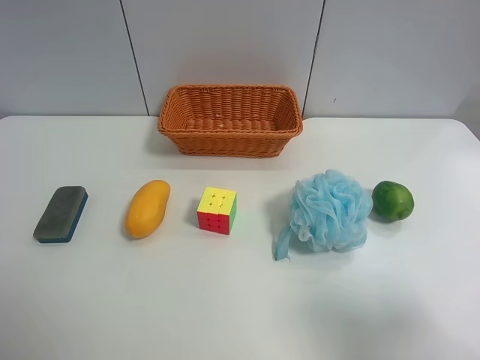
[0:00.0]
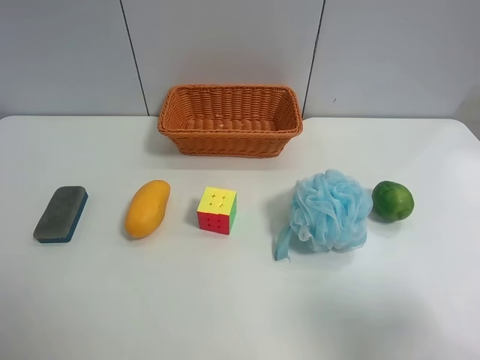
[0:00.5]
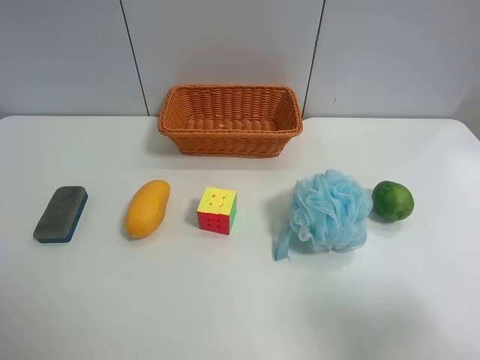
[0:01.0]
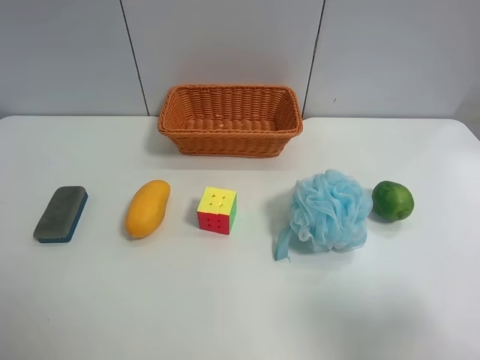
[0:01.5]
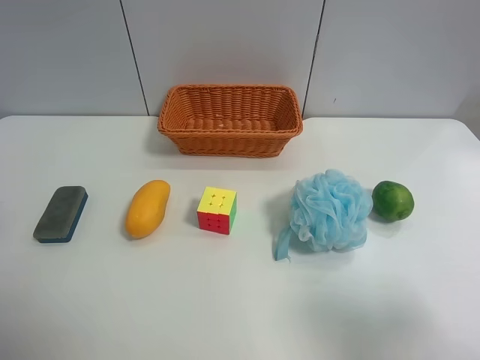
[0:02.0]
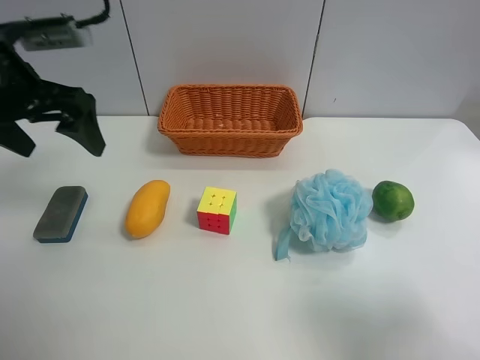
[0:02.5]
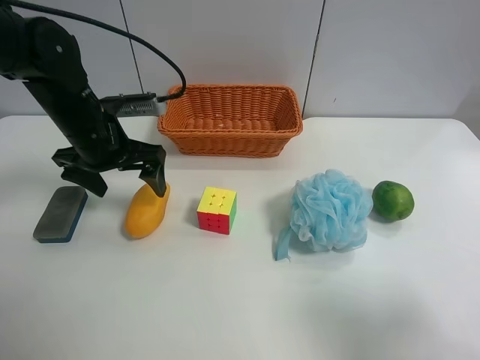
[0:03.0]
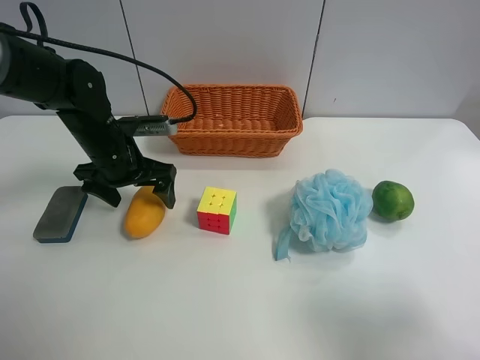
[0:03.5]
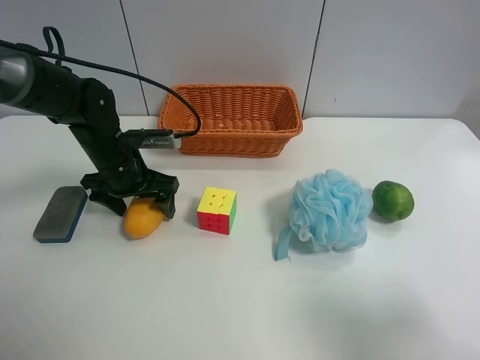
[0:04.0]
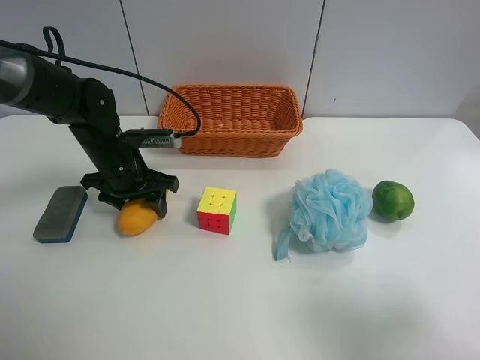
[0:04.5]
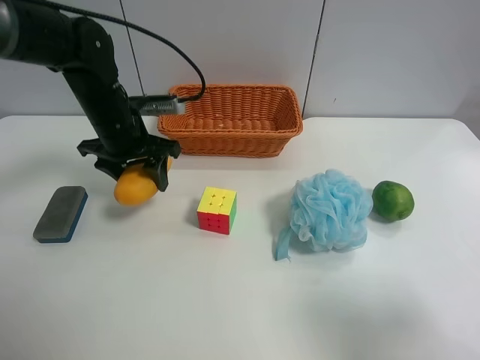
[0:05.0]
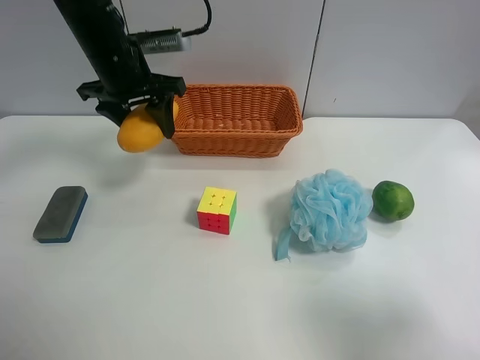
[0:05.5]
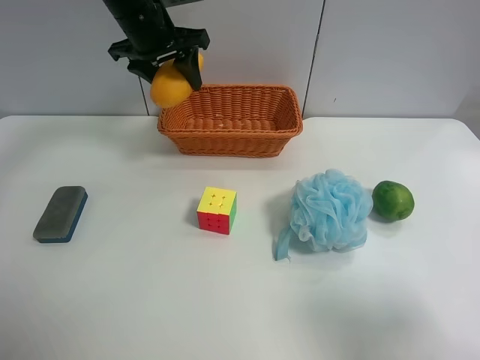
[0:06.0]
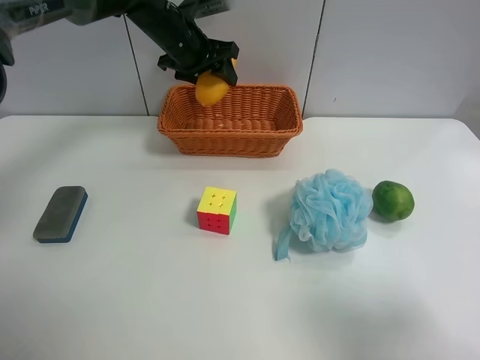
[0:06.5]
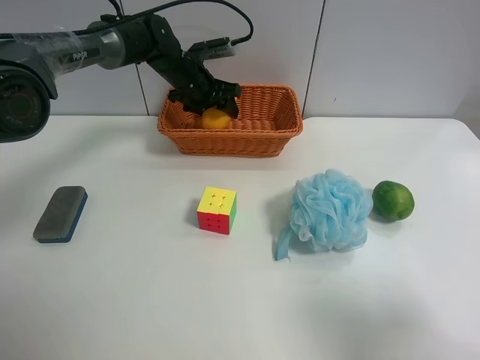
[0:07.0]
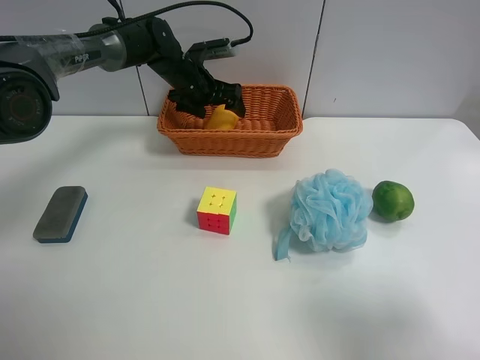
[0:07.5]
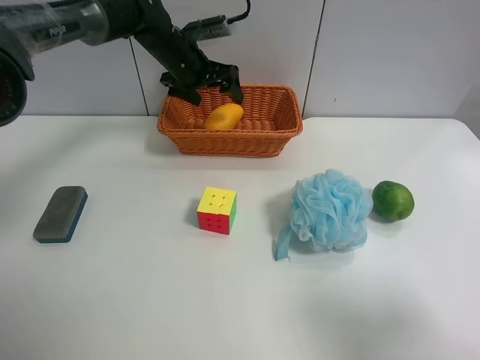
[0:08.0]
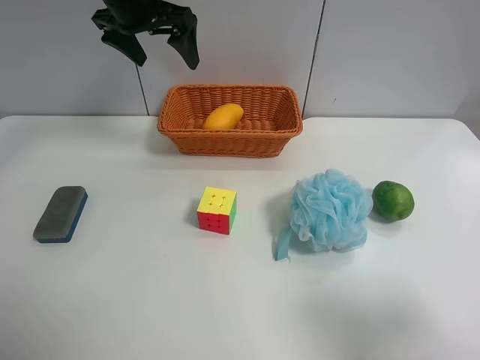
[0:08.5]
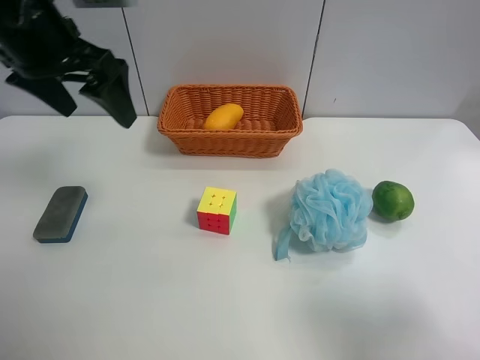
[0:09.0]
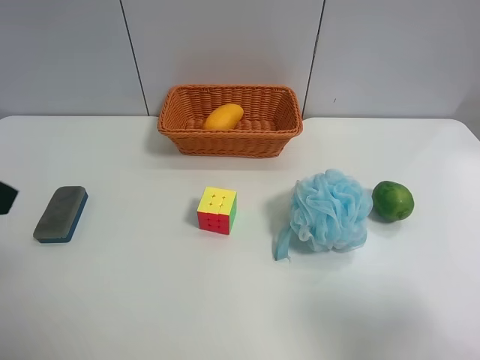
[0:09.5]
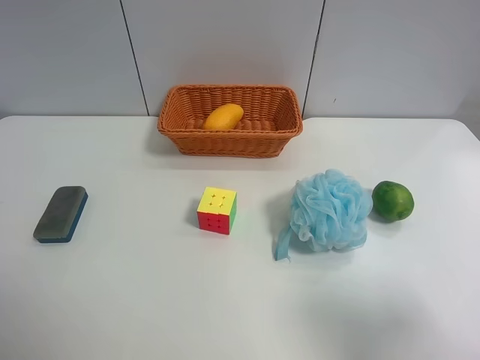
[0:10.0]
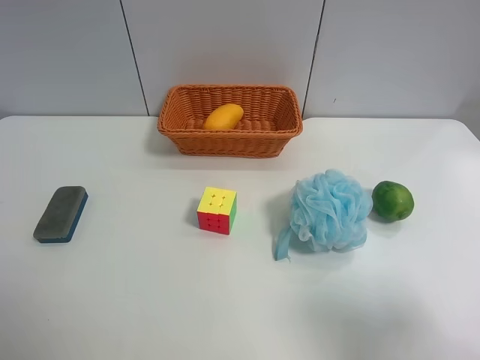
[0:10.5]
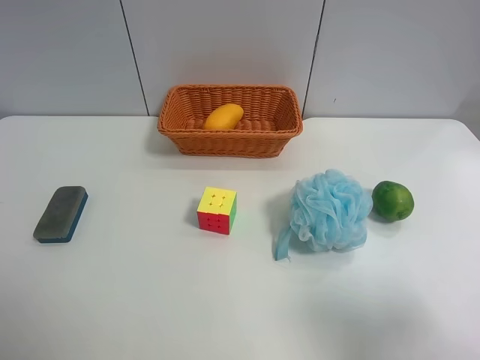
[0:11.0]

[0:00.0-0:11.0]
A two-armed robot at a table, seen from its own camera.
Task of the whole recording: use the left gripper to grab items from the table and place them in the basket.
Step, 0:00.0 to 0:04.0: Grasp the mango with the left gripper.
Step, 0:04.5 to 0:07.5: Place the mango into the basket with the left gripper.
0:02.0 to 0:03.5: The left gripper moves downward, forward and to the right, about 30 cm.
0:03.5 to 0:05.5: The left gripper goes some 15 cm upward and forward, and closes its fingers.
0:05.5 to 0:07.5: The left gripper is displaced forward, downward and to the right by some 15 cm, and opens.
0:07.5 to 0:09.0: The left gripper moves backward, upward and to the left, approximately 30 cm.
0:09.0 to 0:11.0: The left gripper travels backward by about 30 cm.
